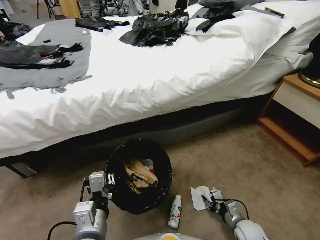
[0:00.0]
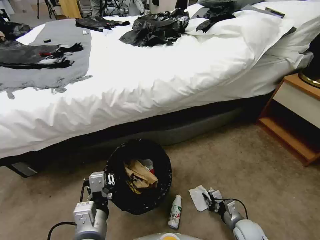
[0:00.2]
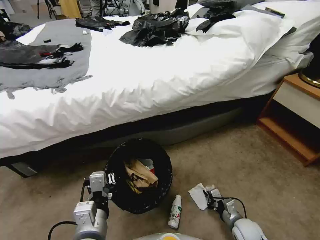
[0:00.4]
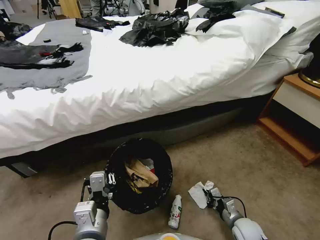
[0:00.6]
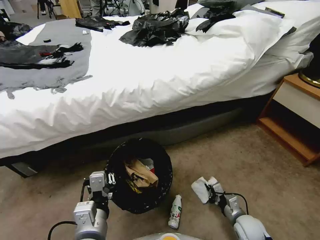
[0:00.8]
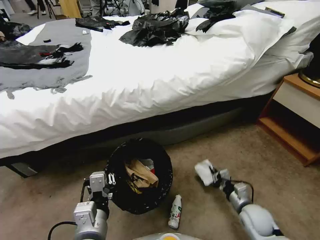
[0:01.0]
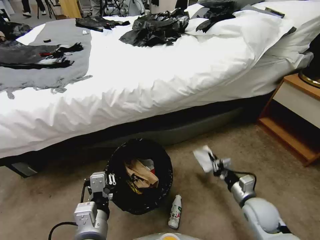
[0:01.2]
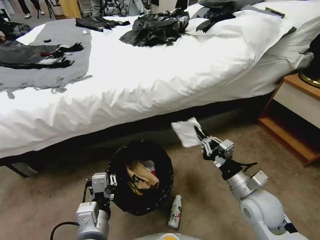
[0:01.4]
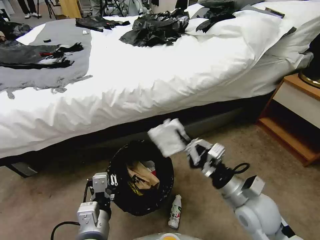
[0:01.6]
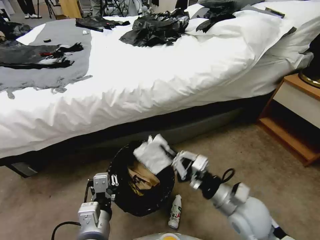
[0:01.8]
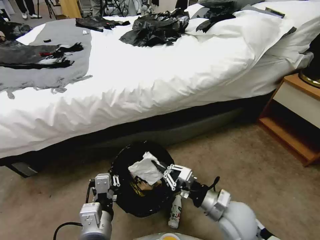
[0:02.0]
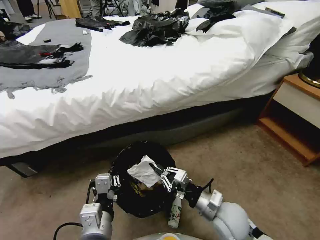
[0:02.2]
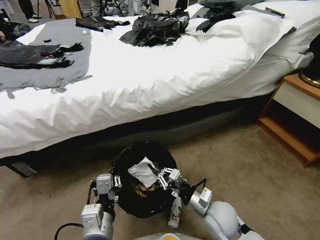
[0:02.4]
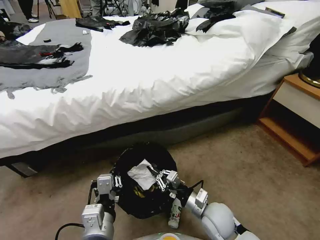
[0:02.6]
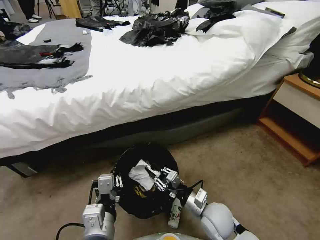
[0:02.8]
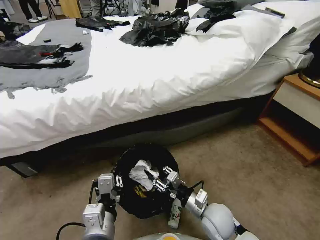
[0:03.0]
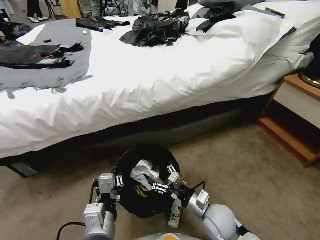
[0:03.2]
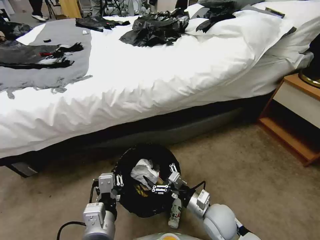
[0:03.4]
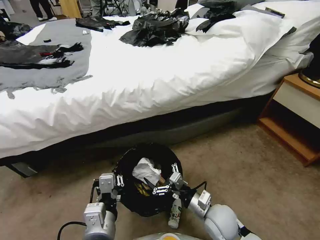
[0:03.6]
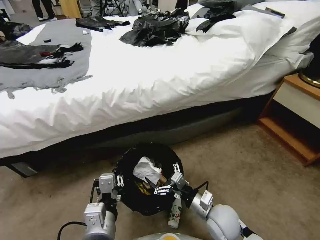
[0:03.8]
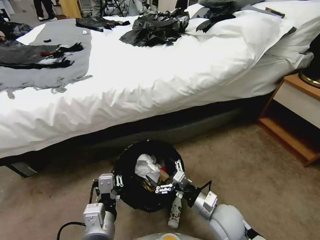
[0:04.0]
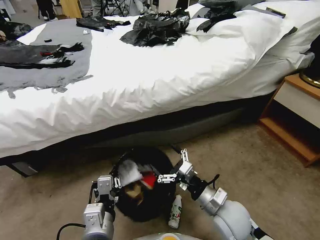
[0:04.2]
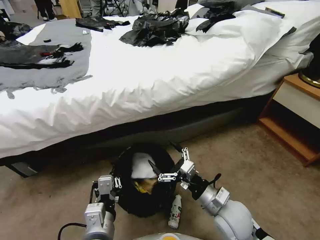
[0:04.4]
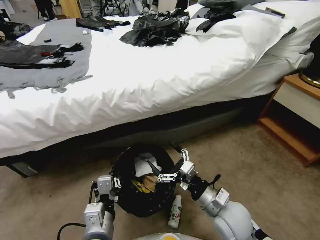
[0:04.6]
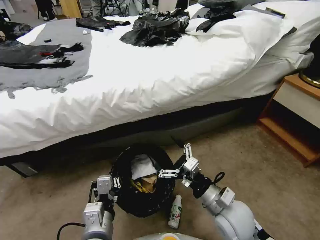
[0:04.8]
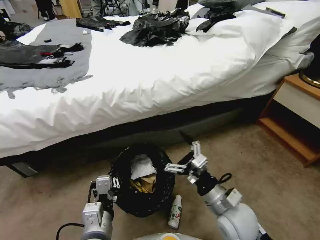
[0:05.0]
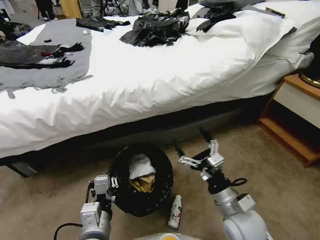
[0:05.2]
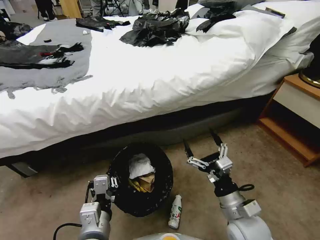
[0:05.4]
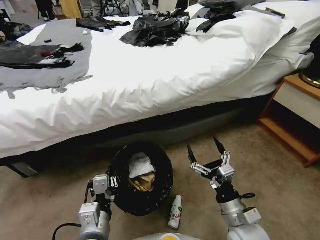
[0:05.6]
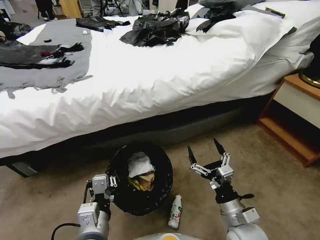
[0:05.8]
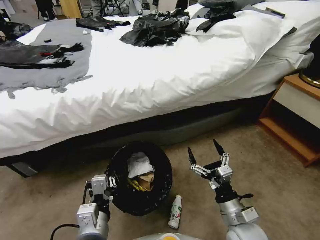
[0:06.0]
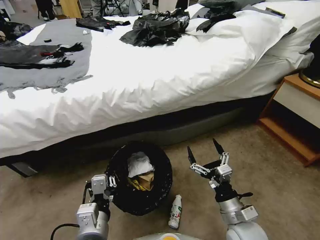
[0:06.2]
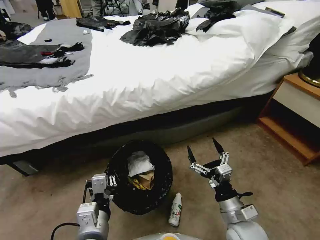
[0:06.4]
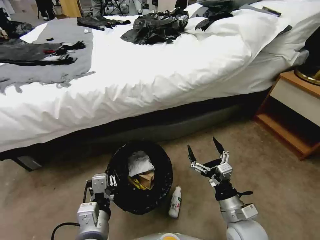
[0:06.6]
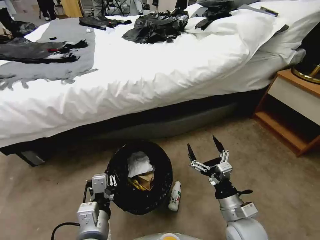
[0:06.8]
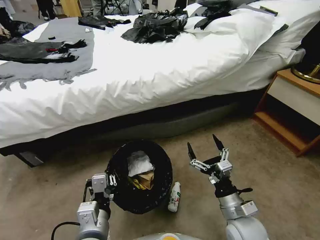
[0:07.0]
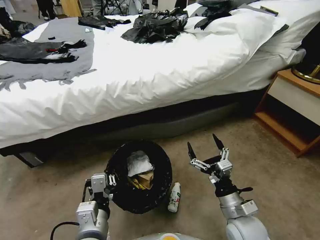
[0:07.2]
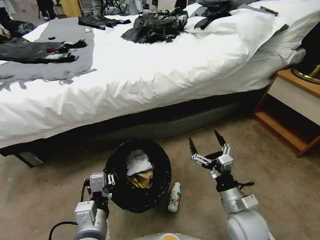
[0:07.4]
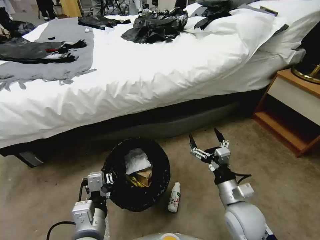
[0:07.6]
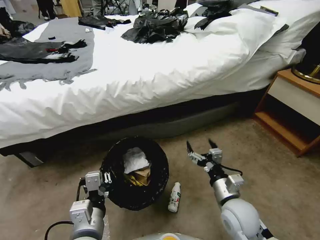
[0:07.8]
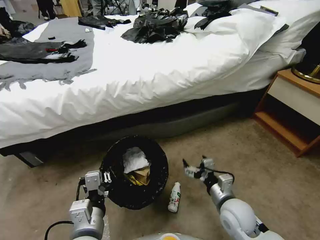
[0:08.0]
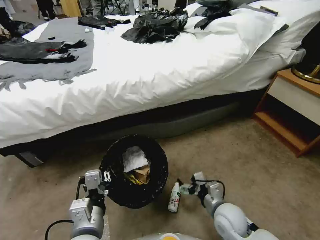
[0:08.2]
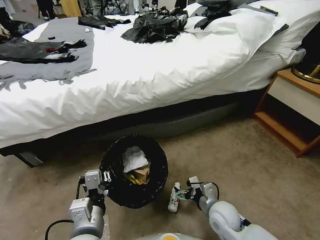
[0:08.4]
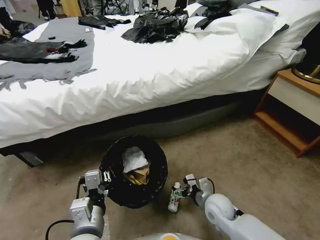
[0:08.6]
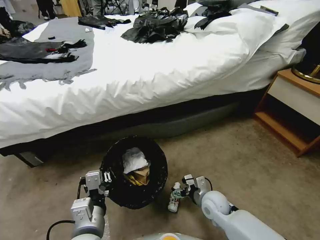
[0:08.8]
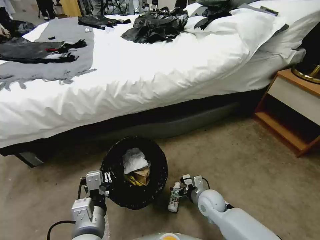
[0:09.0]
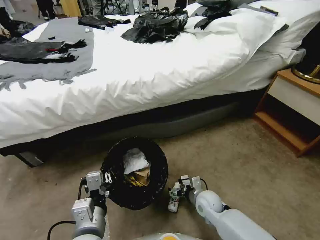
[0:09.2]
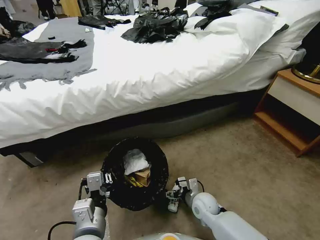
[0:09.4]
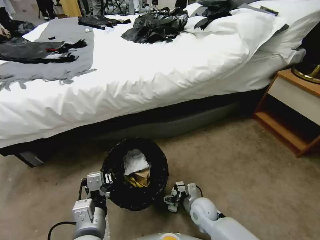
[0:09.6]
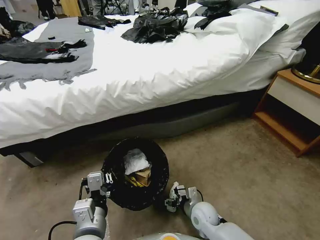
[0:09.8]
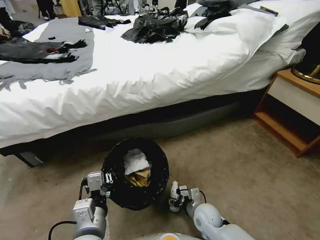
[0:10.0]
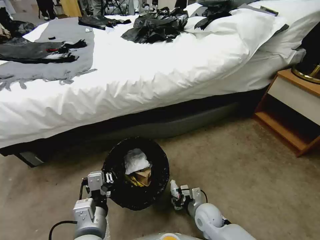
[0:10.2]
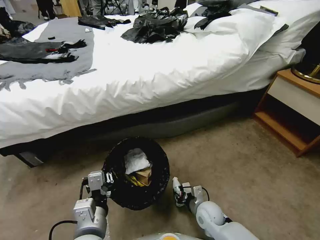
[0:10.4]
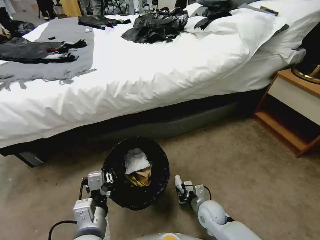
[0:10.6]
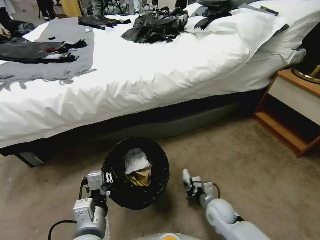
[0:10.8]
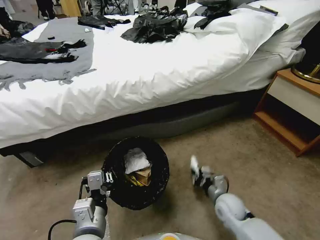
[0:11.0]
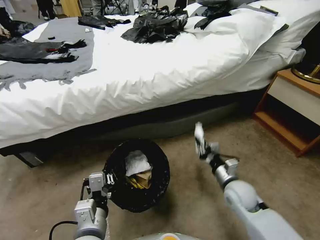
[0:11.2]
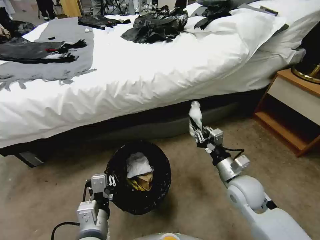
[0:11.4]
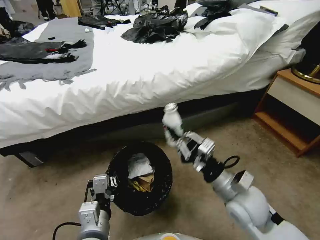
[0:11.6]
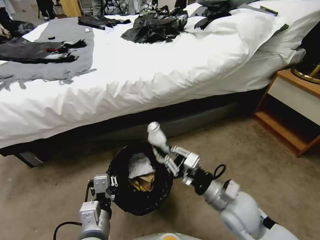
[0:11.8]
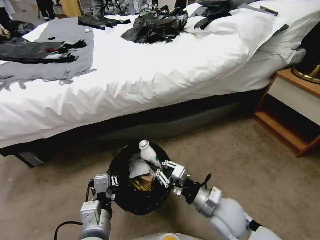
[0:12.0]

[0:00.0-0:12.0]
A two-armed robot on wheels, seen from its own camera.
Task of the whole recording: Pick up the trash bin, then pick up the garbage from the floor and place it into the trash bin.
0:00.0 to 0:01.6: The right gripper moves upward, approximately 25 cm, and closes its fingers.
0:01.6 to 0:03.0: The right gripper is displaced downward and to the left by roughly 15 cm, and opens its fingers.
0:03.0 to 0:04.4: The right gripper moves upward, roughly 5 cm, and opens up.
0:04.4 to 0:06.0: The right gripper changes place by roughly 5 cm.
0:07.6 to 0:09.0: The right gripper goes approximately 15 cm downward and forward.
0:09.0 to 0:10.4: The right gripper closes up.
0:10.4 to 0:12.0: The right gripper shifts approximately 15 cm upward.

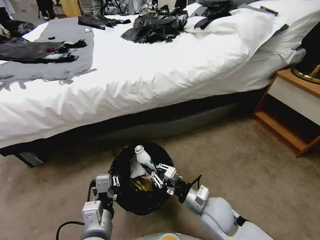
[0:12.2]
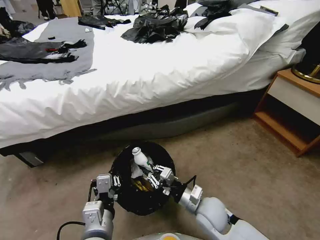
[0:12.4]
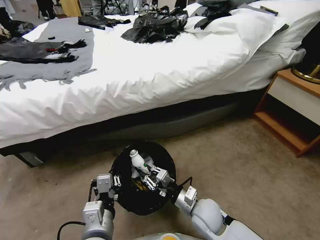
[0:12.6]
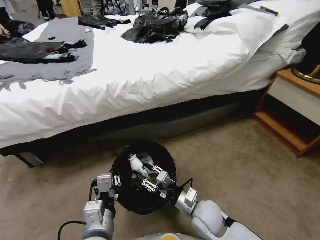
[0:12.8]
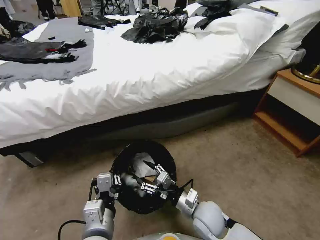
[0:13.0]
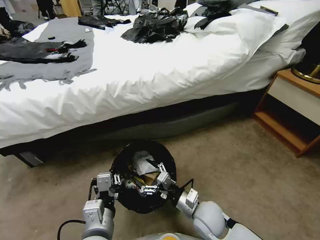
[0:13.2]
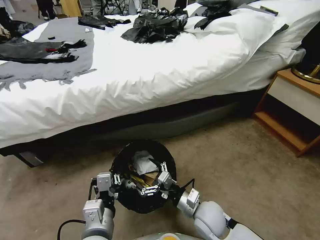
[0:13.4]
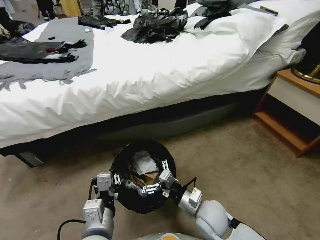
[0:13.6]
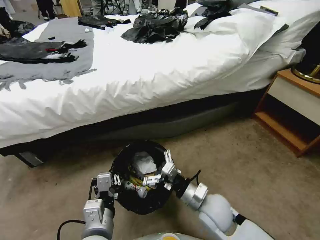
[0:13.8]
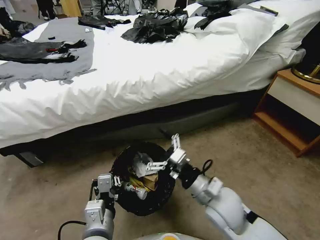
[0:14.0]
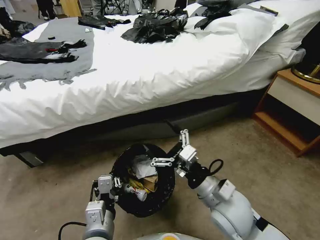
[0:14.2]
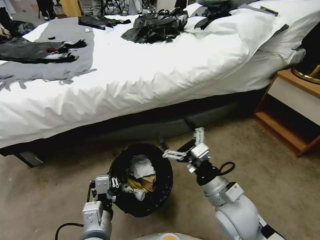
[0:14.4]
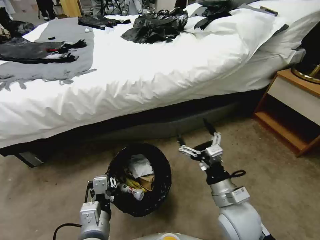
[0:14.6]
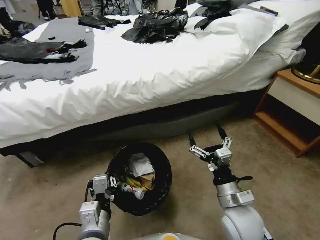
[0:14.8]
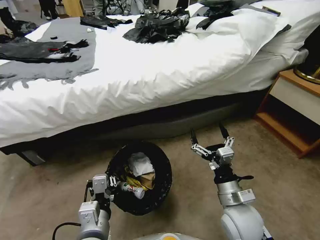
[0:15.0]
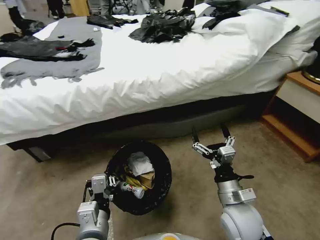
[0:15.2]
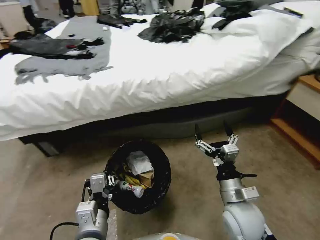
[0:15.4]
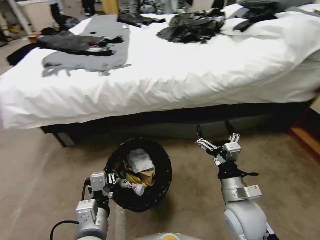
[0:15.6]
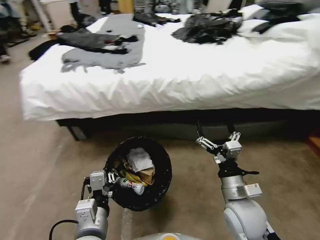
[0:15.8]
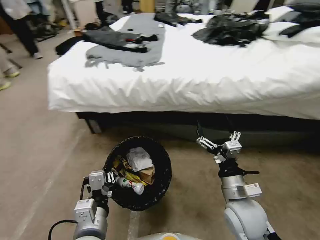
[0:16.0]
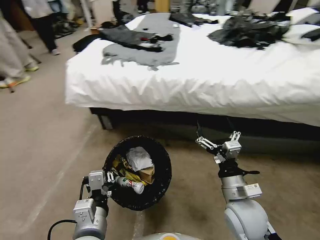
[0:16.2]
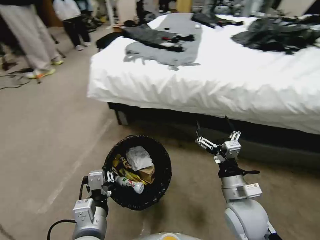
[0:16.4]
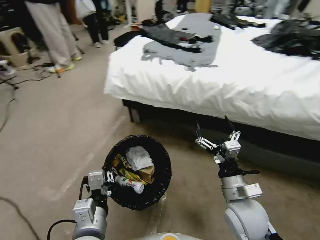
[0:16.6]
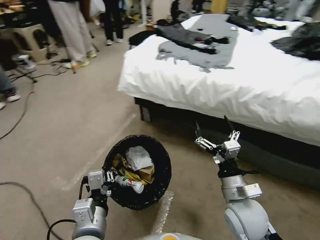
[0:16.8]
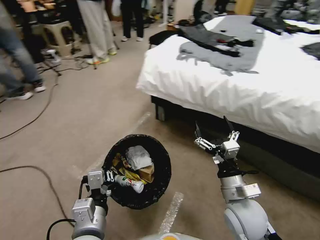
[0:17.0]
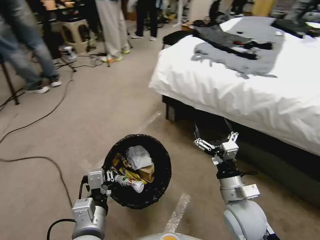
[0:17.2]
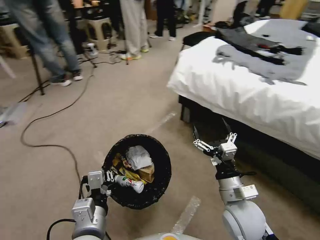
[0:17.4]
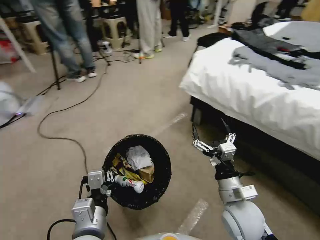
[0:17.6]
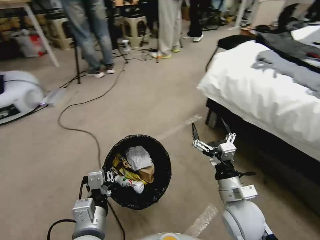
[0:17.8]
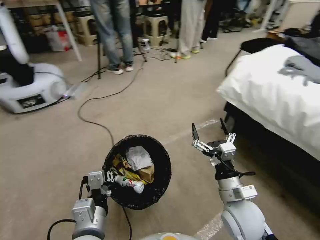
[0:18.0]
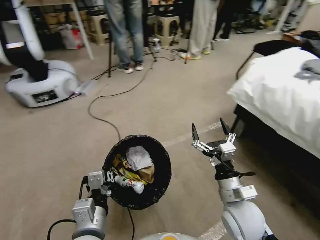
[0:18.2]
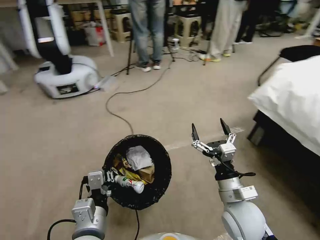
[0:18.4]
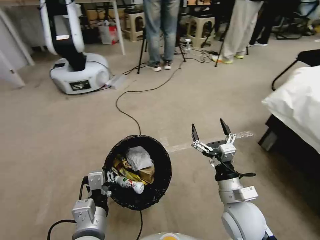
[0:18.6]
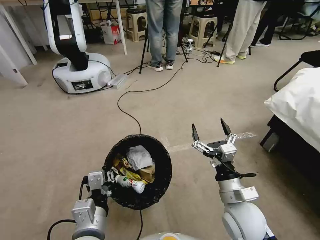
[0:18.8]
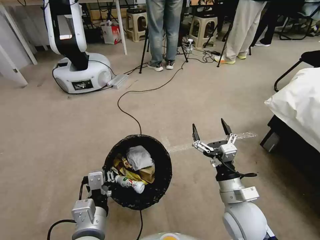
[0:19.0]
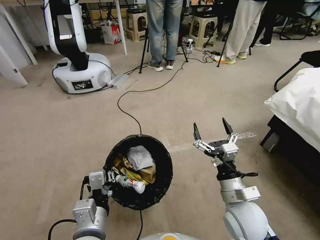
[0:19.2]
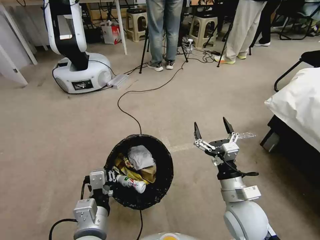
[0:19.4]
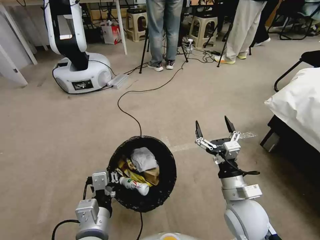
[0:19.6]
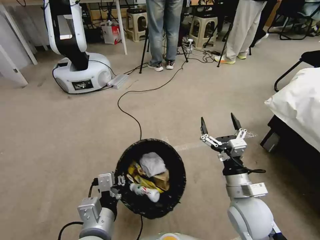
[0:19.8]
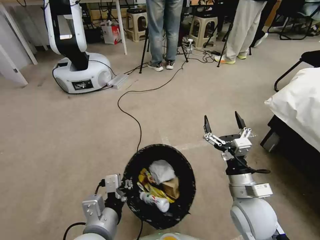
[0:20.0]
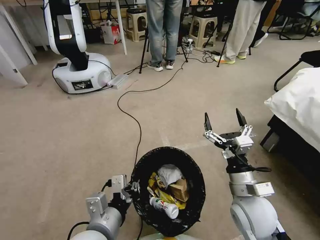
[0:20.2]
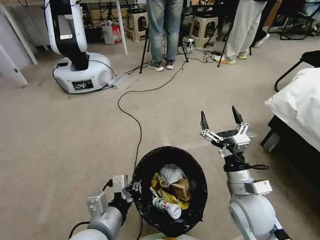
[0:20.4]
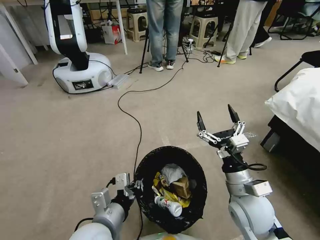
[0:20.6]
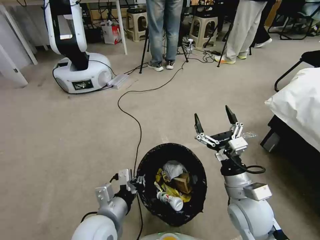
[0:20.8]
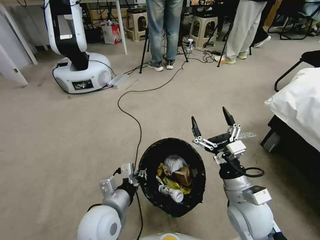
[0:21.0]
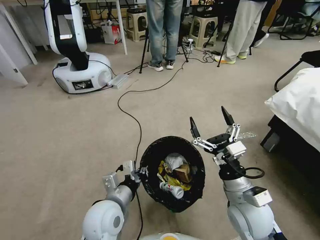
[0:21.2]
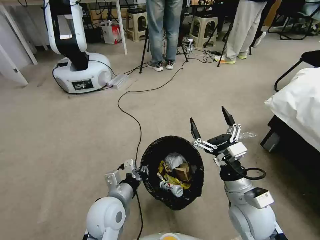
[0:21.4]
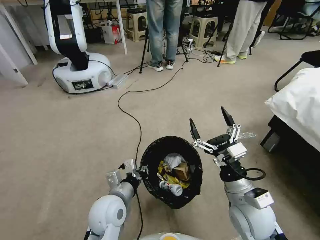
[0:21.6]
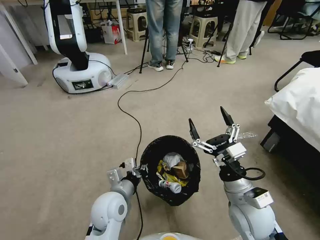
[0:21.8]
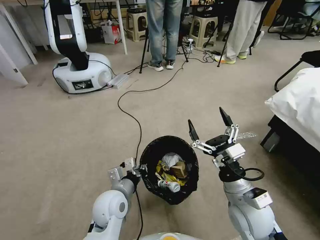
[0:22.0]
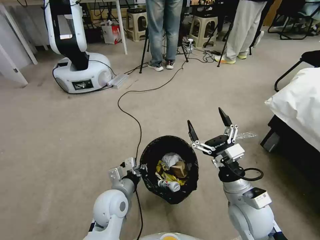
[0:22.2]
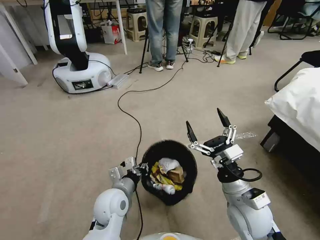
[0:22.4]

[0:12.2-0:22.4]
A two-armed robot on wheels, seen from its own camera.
Task of the whole recording: Pick up the trash bin, then pick up the garbage from the floor and place it into the trash bin.
0:12.2 to 0:13.6: The right gripper opens its fingers.
0:13.6 to 0:15.2: The right gripper is displaced upward and to the right by approximately 10 cm.
0:19.4 to 0:21.0: The left gripper goes about 5 cm forward.
0:21.0 to 0:22.4: The left gripper heads forward and downward, covering approximately 10 cm.
